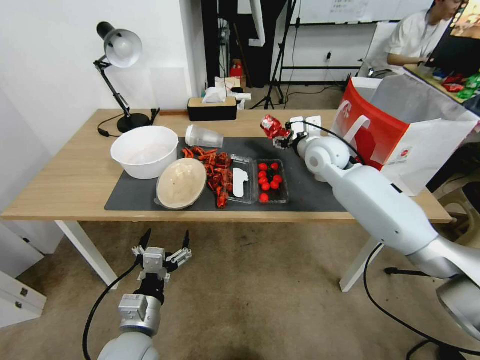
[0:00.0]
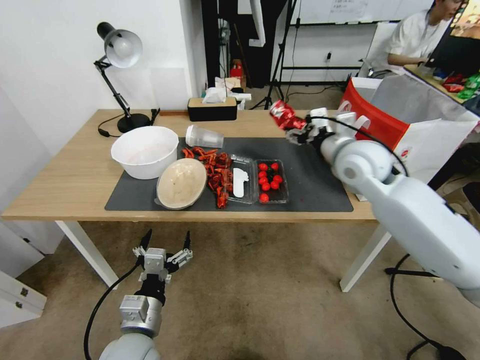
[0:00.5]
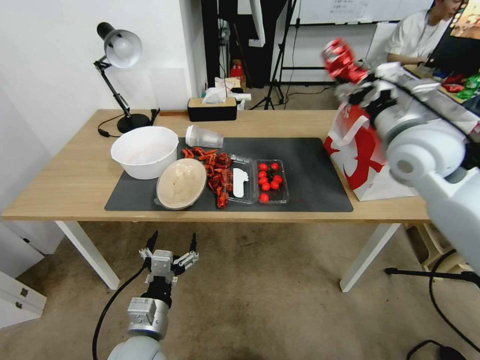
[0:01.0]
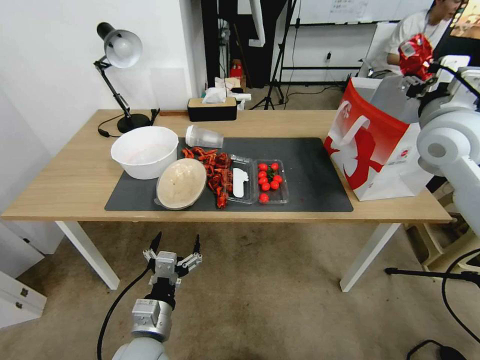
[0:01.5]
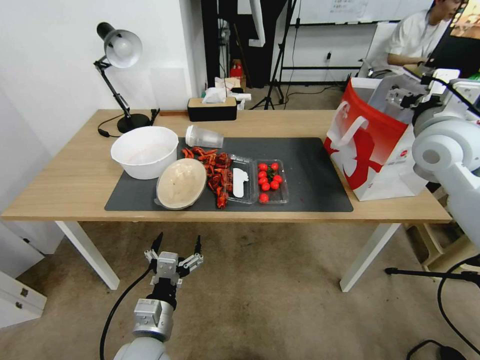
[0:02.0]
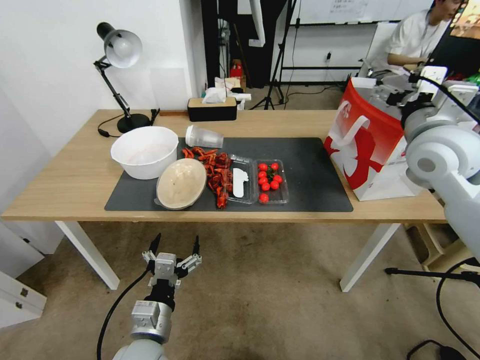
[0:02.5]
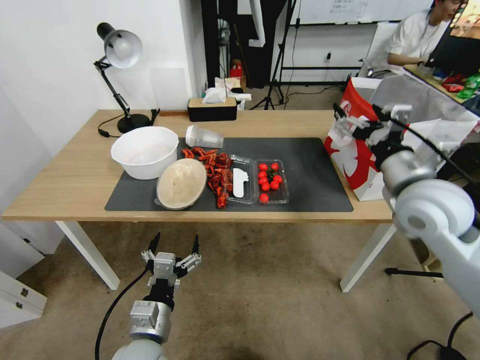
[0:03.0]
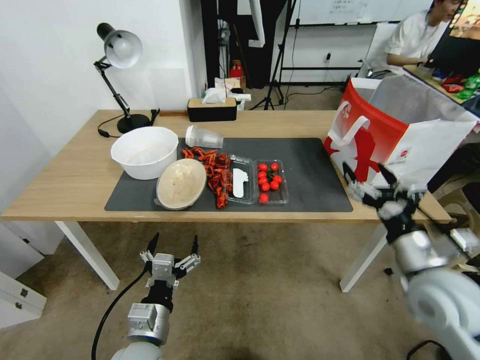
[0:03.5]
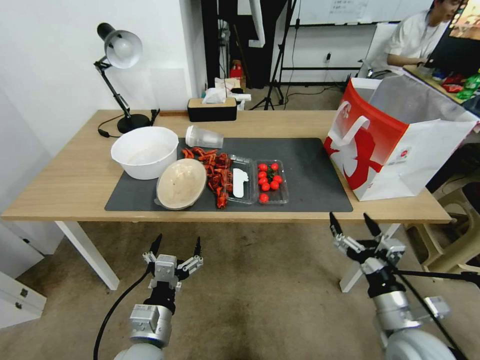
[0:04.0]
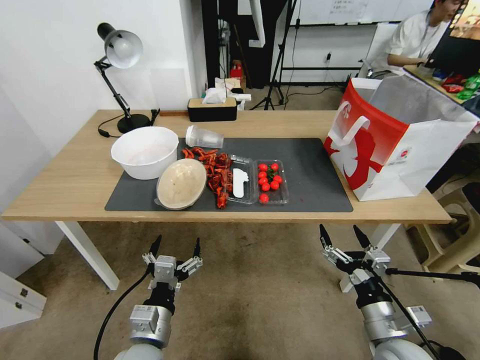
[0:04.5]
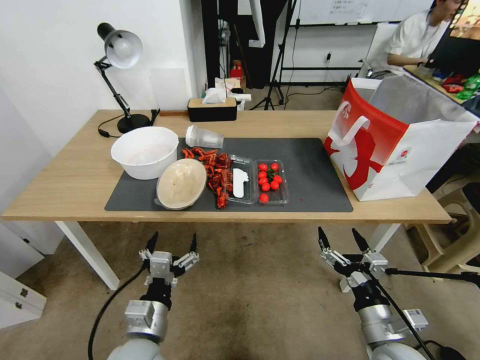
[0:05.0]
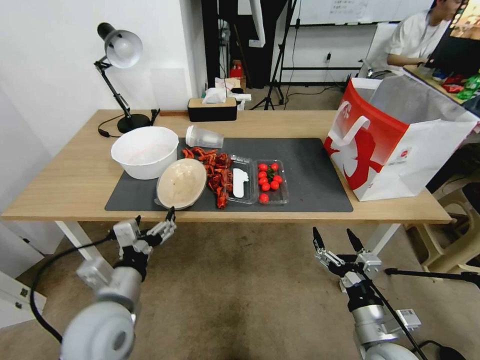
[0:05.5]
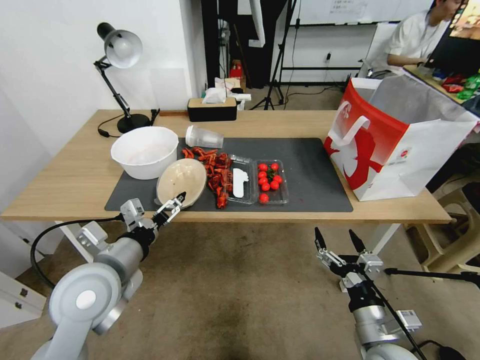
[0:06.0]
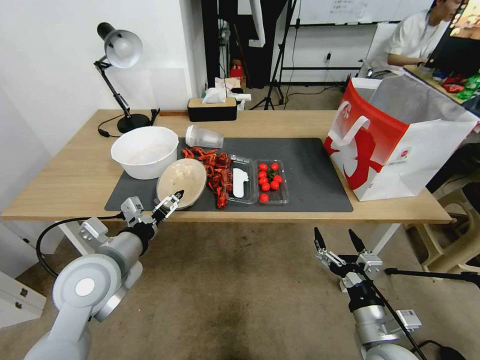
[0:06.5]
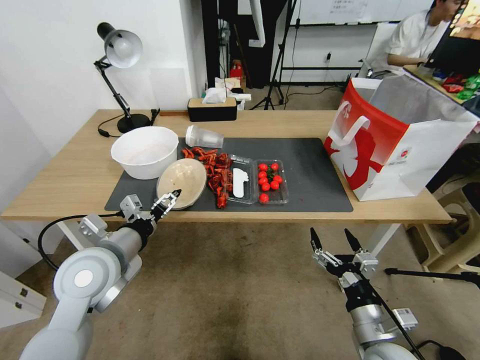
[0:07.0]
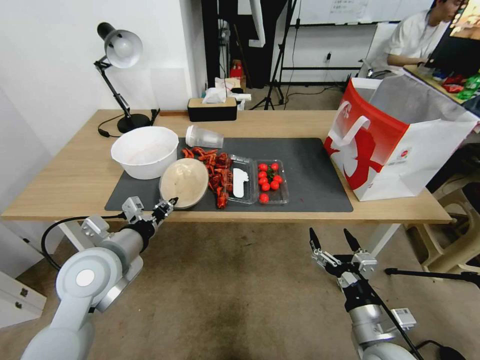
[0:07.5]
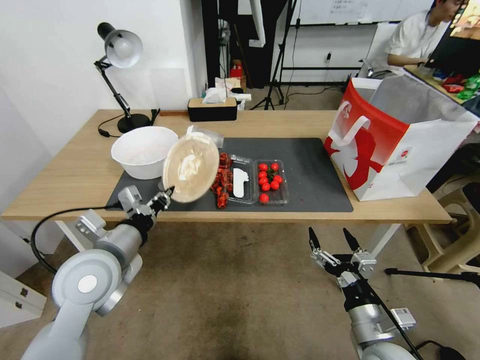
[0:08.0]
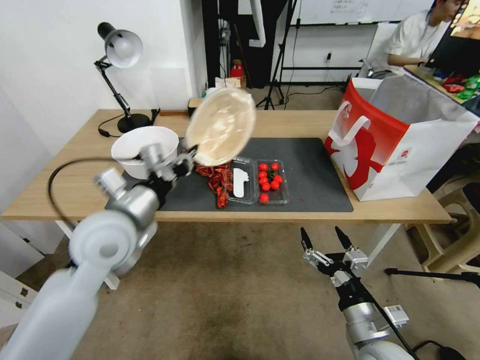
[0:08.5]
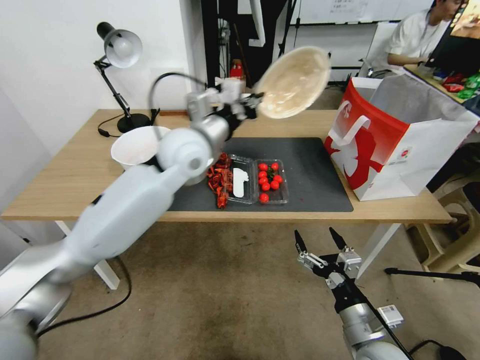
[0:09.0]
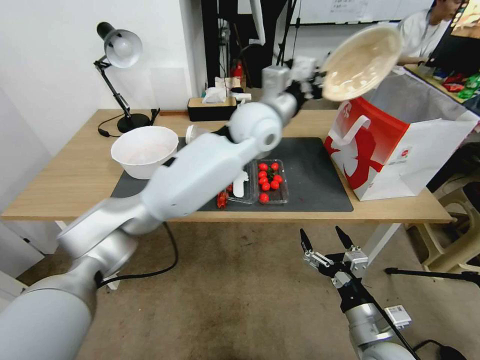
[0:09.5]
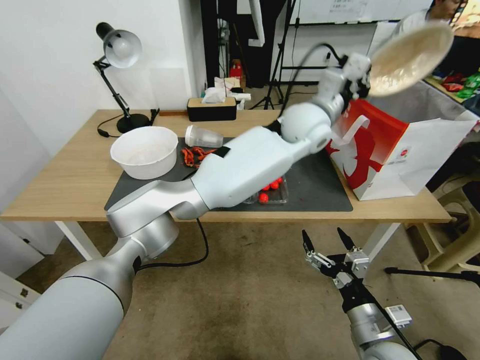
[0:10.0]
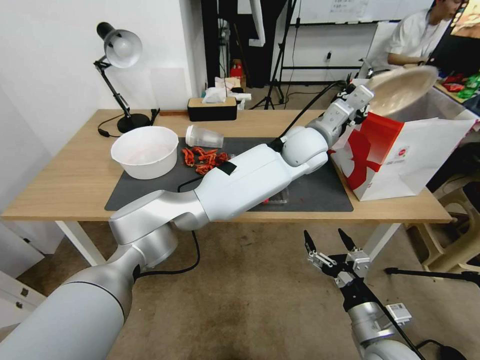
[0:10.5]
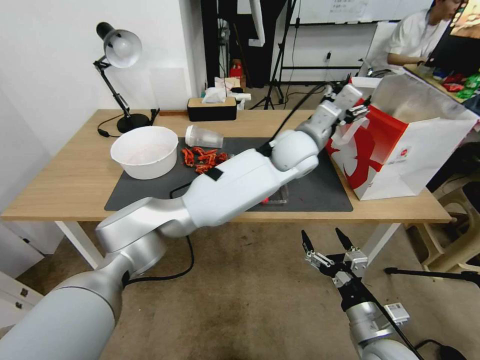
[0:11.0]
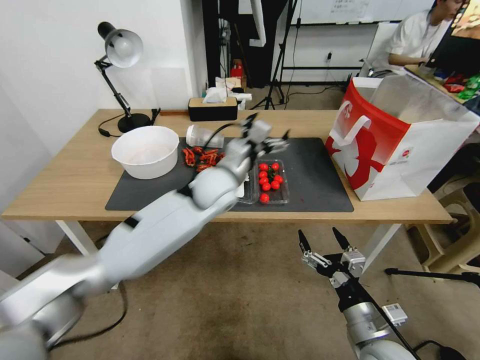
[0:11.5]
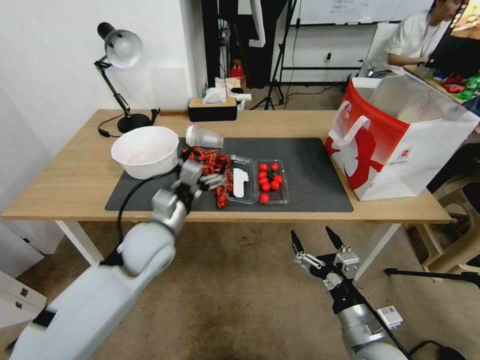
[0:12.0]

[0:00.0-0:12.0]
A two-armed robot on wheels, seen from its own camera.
0:00.0 to 0:02.0: The right gripper goes about 20 cm to the right, upward and backward, and opens its fingers.
0:02.0 to 0:04.0: The right gripper moves downward and backward, approximately 35 cm.
0:04.0 to 0:06.0: The left gripper goes roughly 20 cm upward, forward and to the left, while the right gripper changes place by some 5 cm.
0:06.0 to 0:08.0: The left gripper closes.
0:08.0 to 0:10.0: The left gripper heads to the right and forward, covering roughly 50 cm.
0:10.0 to 0:12.0: The left gripper goes some 40 cm to the left, backward and downward, and opens up.

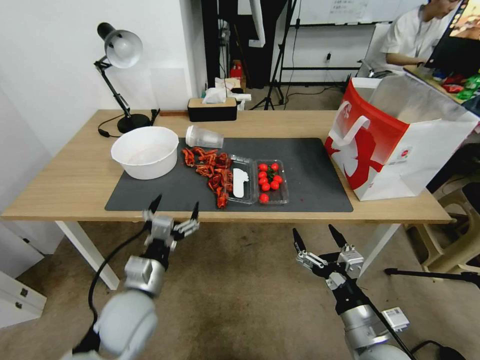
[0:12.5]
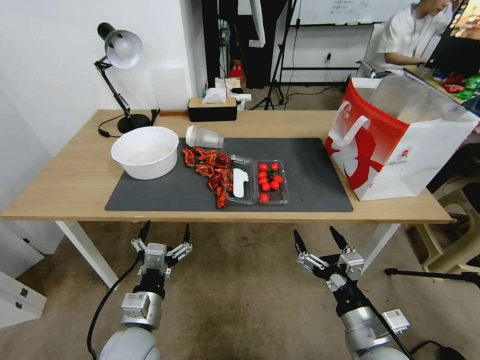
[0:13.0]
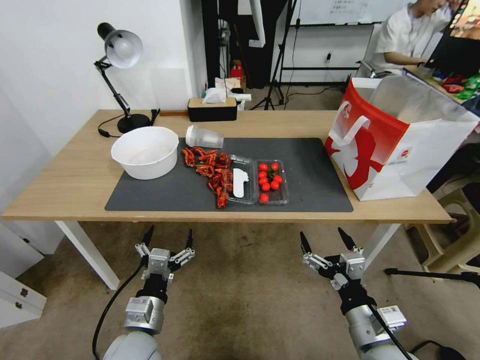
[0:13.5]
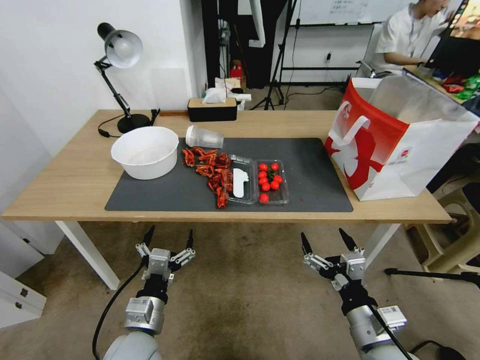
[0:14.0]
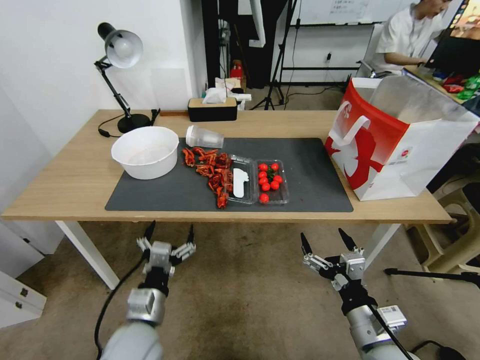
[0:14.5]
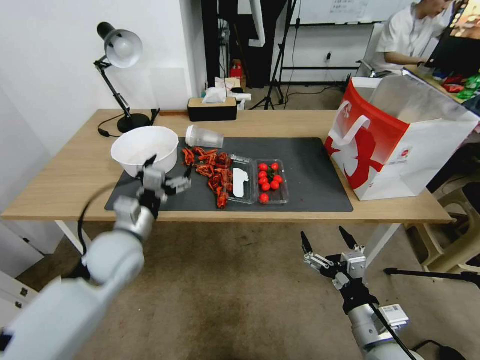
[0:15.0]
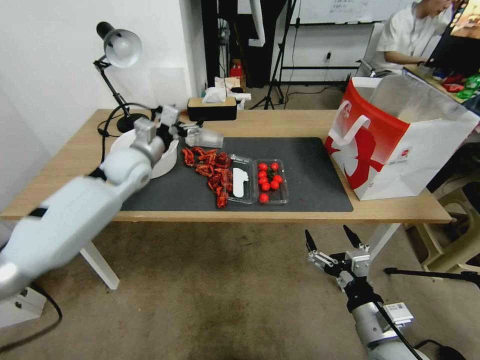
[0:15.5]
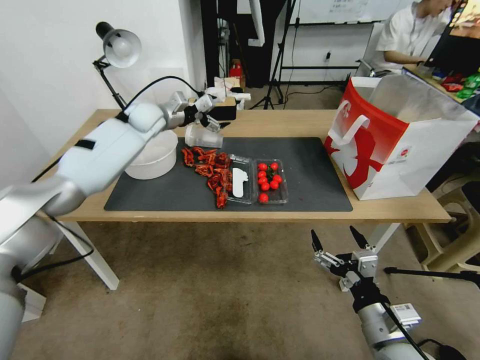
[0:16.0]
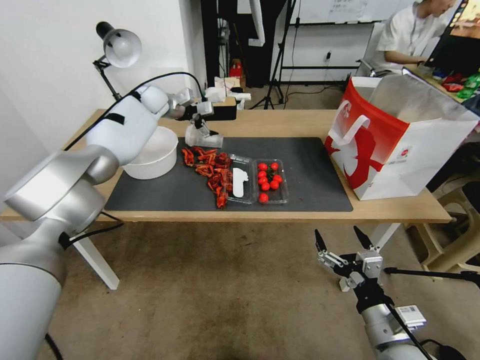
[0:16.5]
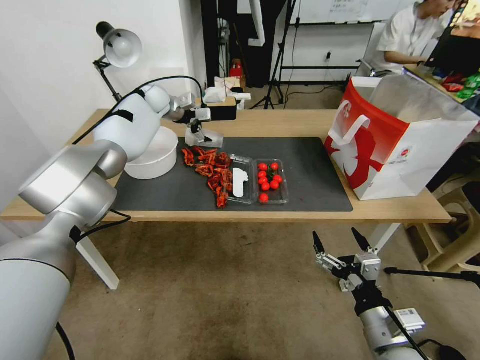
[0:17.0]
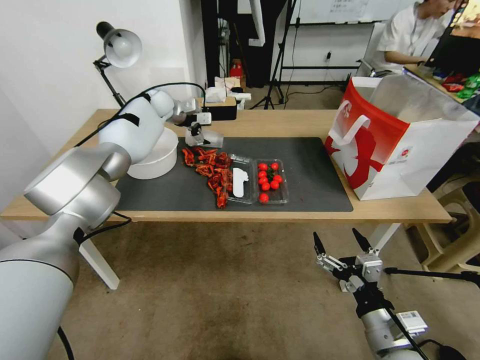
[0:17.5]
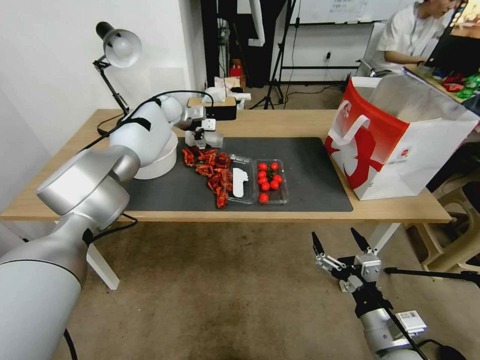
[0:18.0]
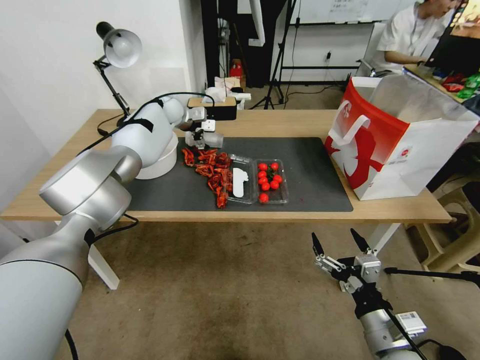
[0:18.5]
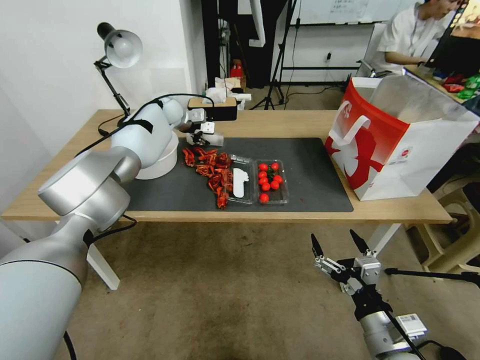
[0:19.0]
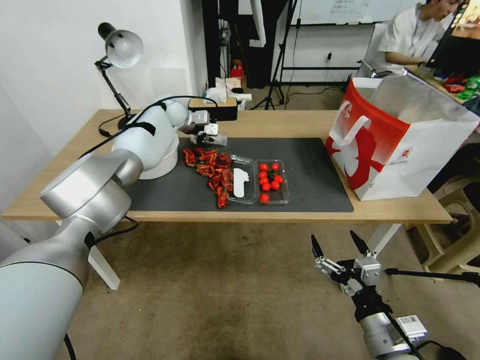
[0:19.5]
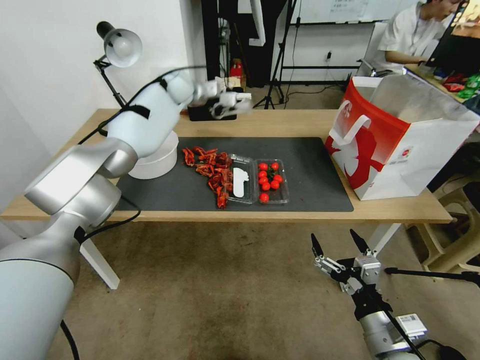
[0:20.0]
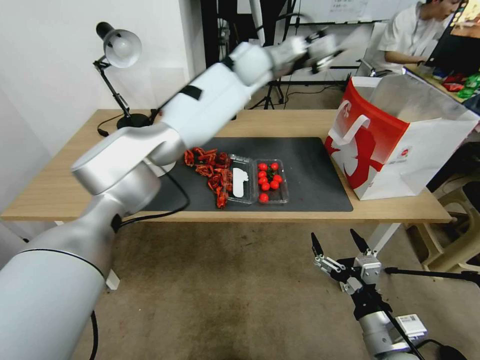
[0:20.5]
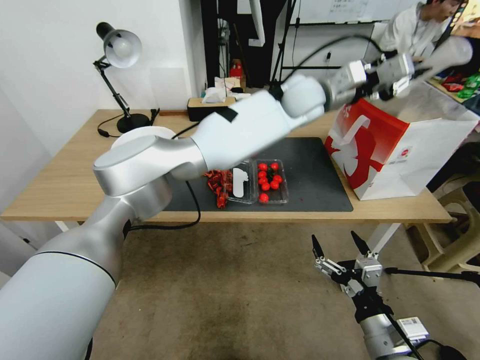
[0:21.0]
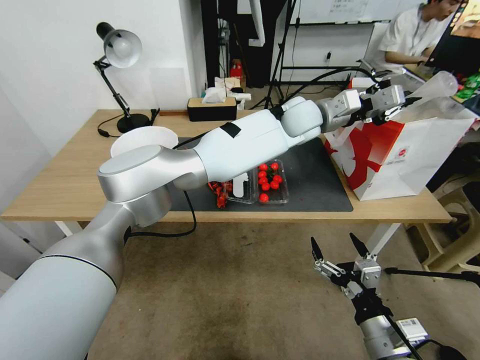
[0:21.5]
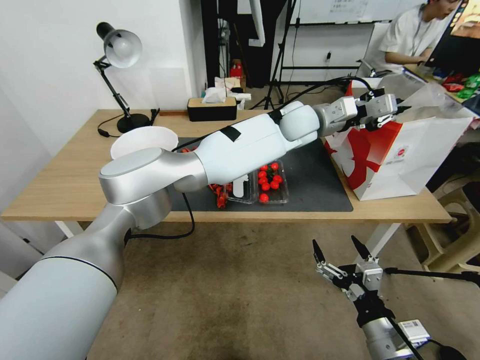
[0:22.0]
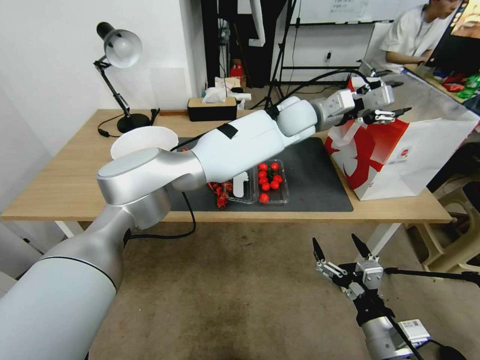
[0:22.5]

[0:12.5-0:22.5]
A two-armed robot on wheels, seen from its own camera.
0:12.5 to 0:14.5: The left gripper is displaced backward by about 5 cm.
0:14.5 to 0:16.5: The left gripper travels forward and upward by approximately 60 cm.
0:16.5 to 0:18.5: The left gripper changes place by some 5 cm.
0:18.5 to 0:20.5: The left gripper is displaced to the right and upward by about 25 cm, and closes.
0:20.5 to 0:22.5: The left gripper is displaced to the right, downward and backward by roughly 15 cm, and opens.

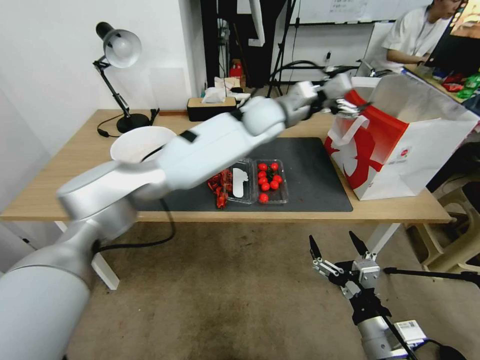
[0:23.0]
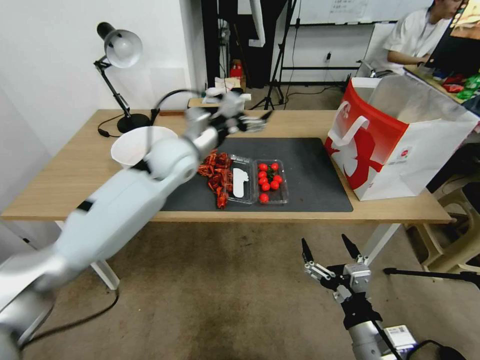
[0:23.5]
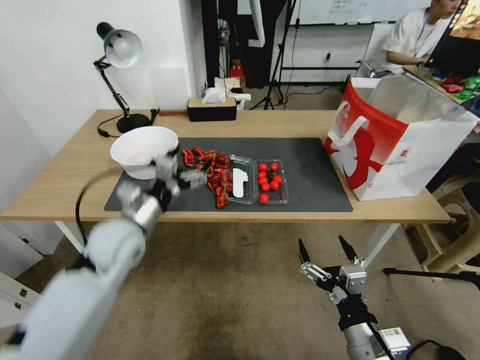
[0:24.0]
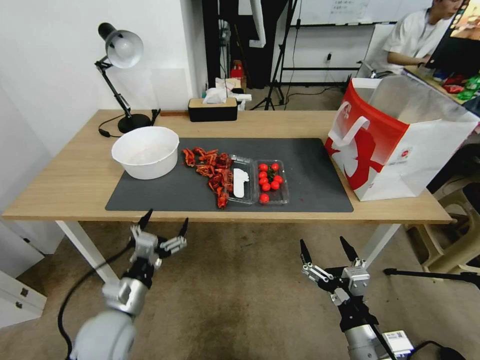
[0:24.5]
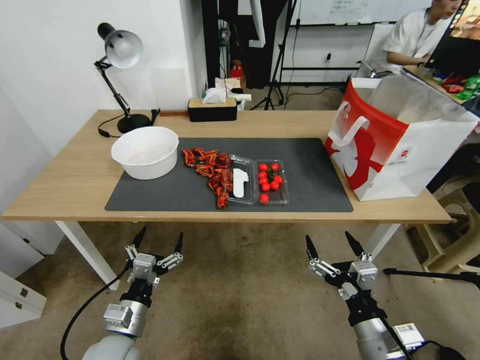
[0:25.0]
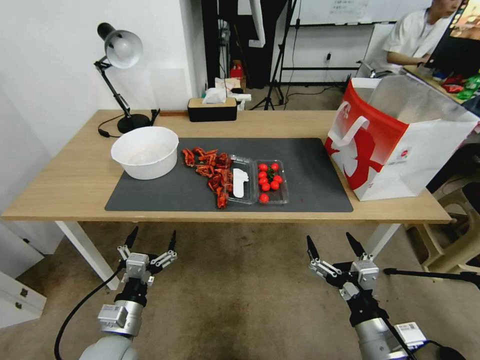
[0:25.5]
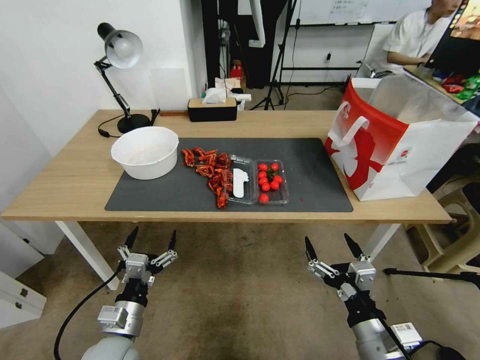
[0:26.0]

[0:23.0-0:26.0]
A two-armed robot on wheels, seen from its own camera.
0:23.0 to 0:24.5: The left gripper goes approximately 50 cm backward, to the left and downward.
0:24.5 to 0:26.0: The grippers make only small movements.
